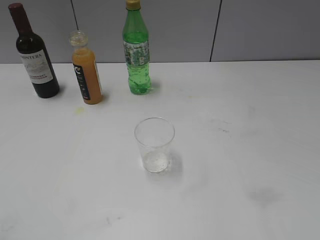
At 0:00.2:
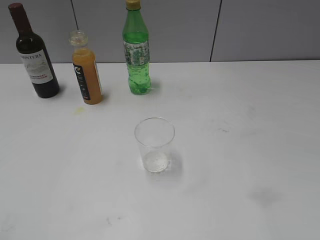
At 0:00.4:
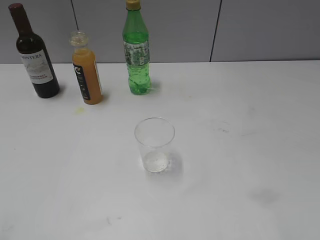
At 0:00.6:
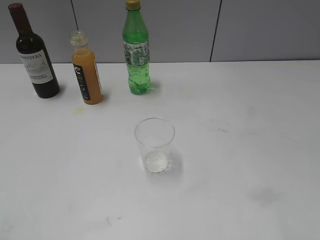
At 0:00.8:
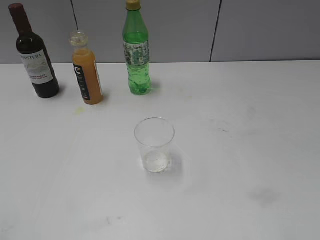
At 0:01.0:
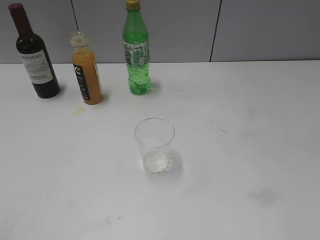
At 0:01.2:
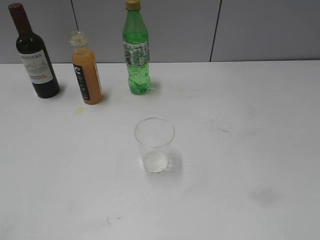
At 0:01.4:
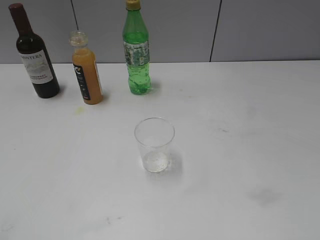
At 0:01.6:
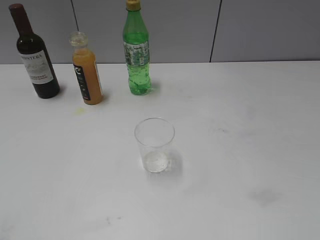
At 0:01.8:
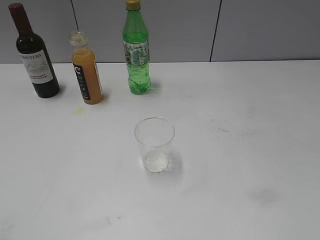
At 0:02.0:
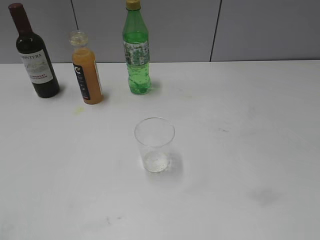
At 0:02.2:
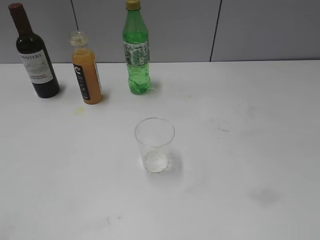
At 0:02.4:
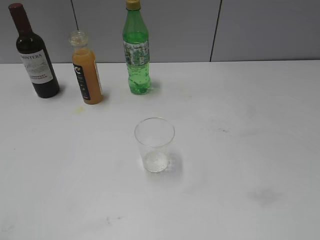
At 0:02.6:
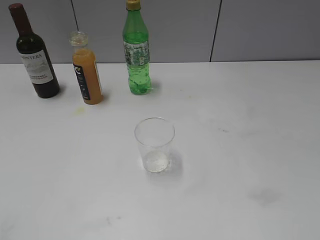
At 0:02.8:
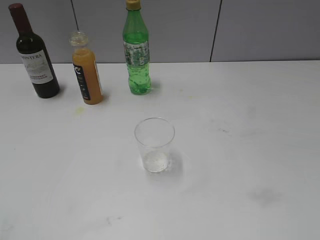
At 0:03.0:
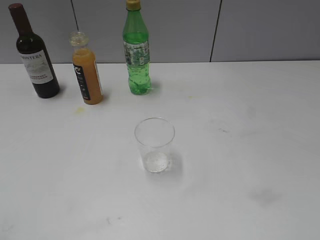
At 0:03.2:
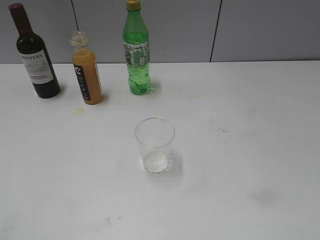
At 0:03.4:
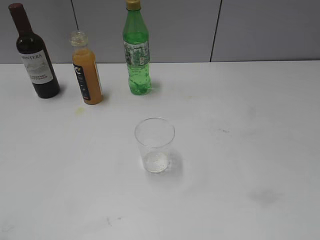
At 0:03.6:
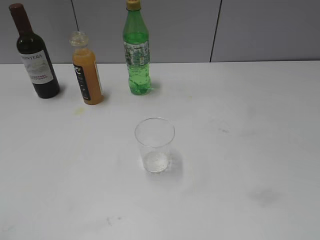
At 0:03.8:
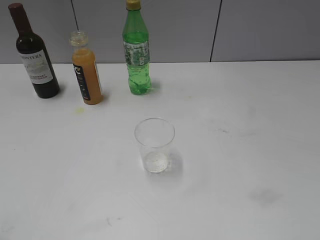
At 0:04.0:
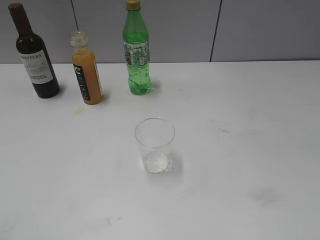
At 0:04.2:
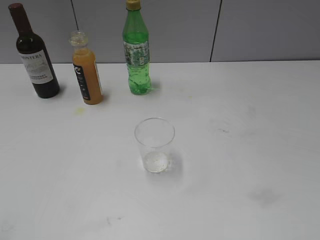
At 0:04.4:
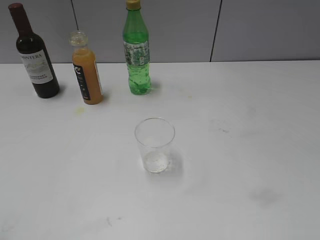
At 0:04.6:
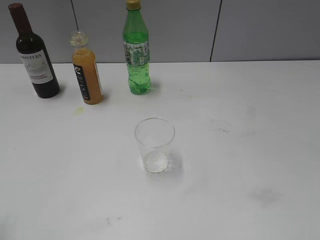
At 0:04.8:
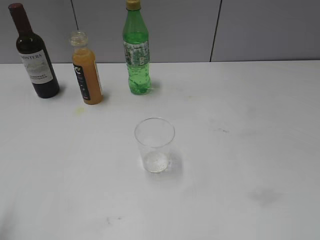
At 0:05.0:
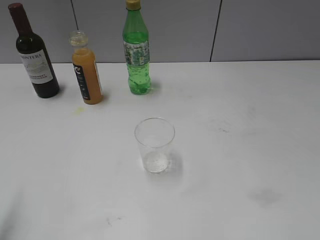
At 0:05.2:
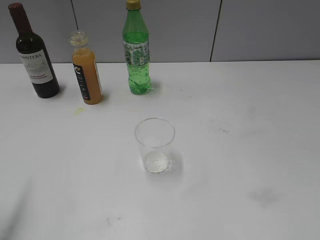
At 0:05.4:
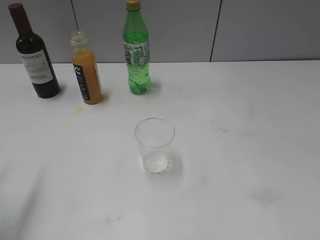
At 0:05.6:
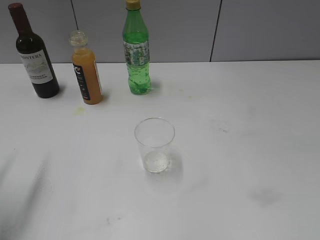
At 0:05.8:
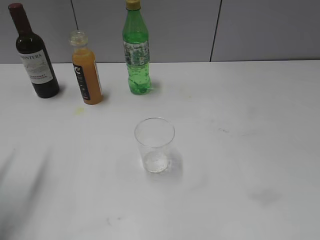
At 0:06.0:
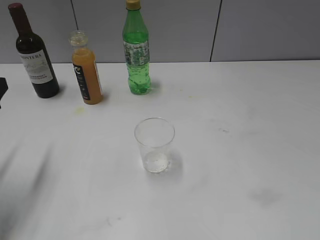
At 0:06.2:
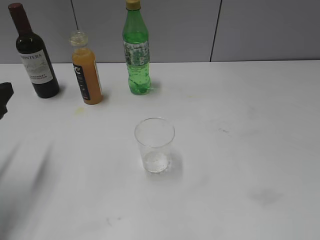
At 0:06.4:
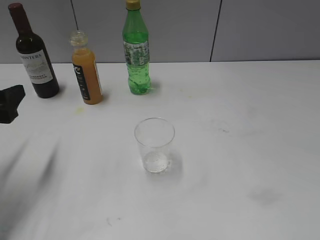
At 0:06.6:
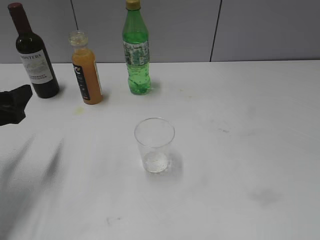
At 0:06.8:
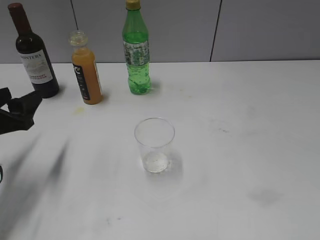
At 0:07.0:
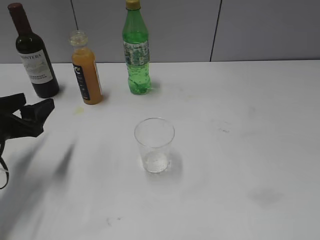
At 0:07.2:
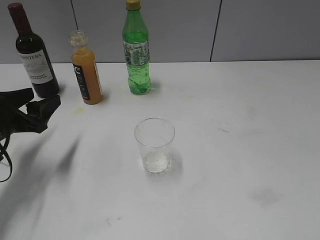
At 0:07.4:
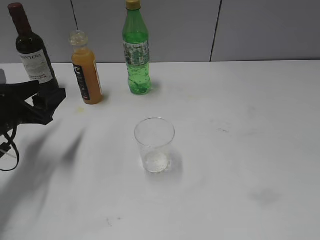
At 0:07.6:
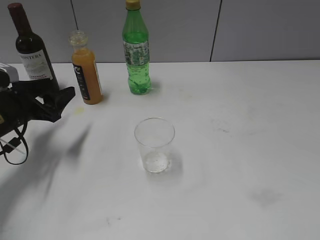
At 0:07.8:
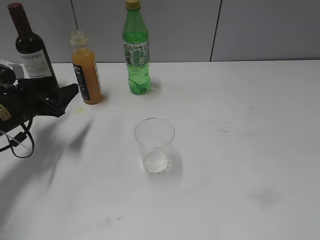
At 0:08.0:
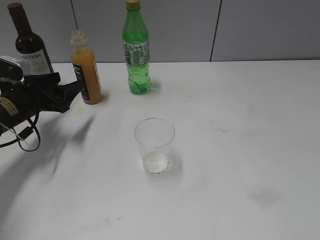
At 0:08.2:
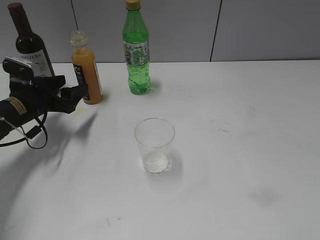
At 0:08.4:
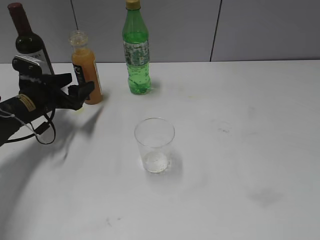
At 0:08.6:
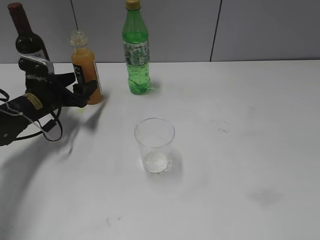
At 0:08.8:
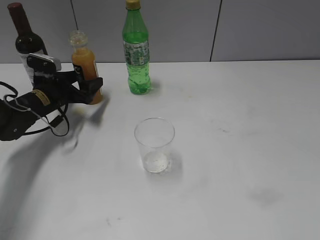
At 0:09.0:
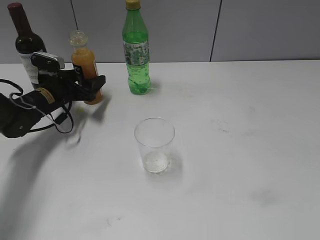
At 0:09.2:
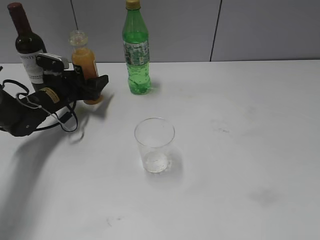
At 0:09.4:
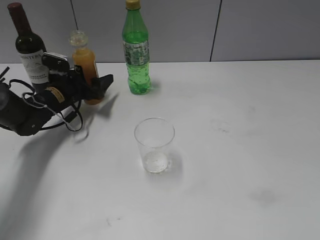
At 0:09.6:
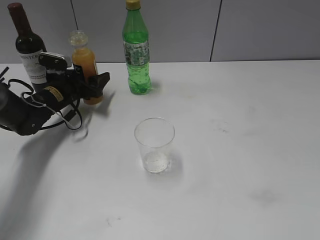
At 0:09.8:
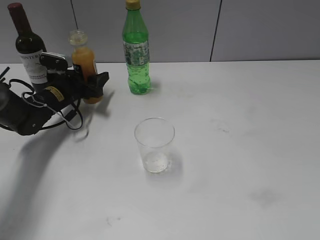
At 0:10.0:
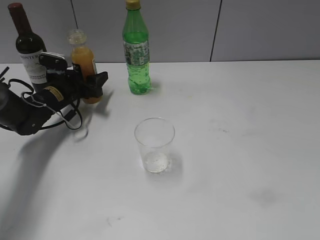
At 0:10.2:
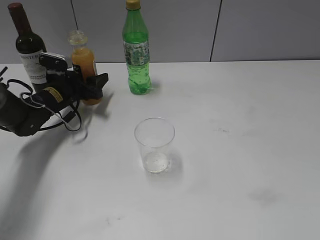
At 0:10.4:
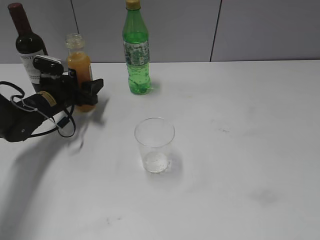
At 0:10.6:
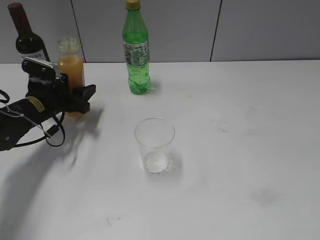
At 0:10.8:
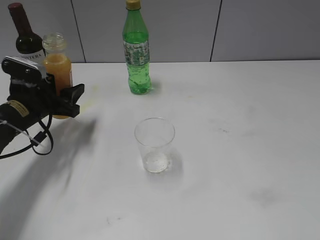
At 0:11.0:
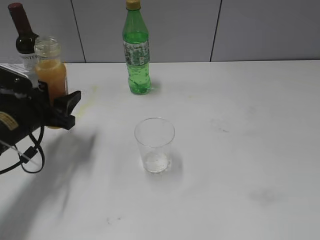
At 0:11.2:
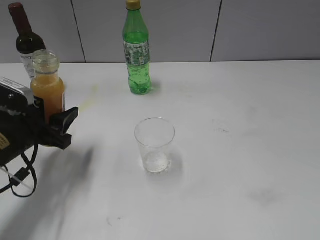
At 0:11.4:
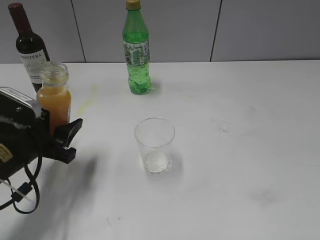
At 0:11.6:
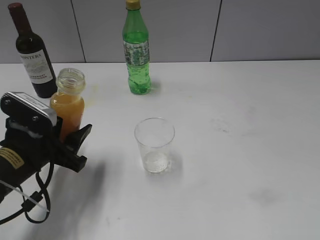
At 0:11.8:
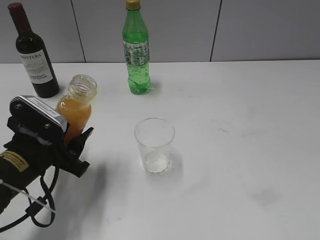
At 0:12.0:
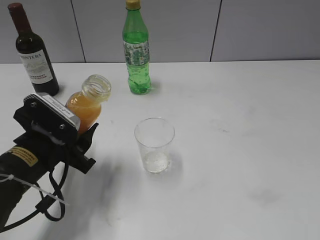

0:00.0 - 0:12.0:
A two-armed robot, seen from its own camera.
Step, 0:00.0 - 0:10.0: Grasp the bottle with orange juice with left gripper.
0:04.4 - 0:06.0: The left gripper shifts approximately 20 cm forward and downward.
0:06.0 - 0:07.6: The left gripper moves forward and downward, approximately 15 cm.
0:07.6 - 0:09.0: The left gripper travels forward by about 10 cm.
0:09.0 - 0:10.4: The left gripper closes its fingers.
0:10.4 - 0:12.0: The left gripper heads backward, covering roughly 20 cm.

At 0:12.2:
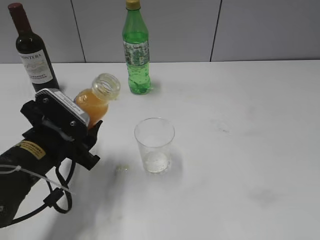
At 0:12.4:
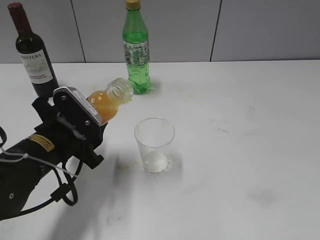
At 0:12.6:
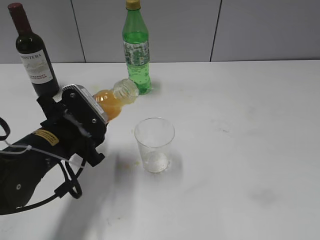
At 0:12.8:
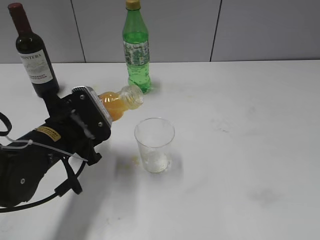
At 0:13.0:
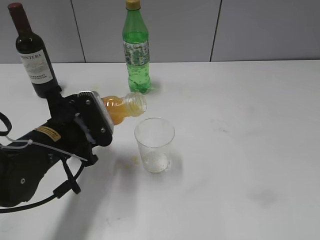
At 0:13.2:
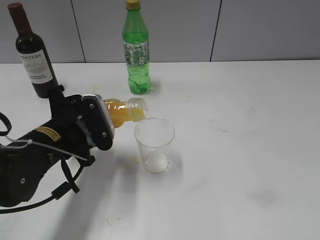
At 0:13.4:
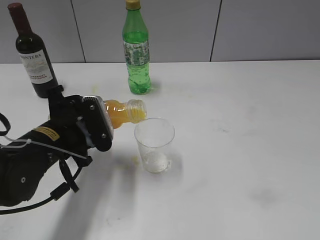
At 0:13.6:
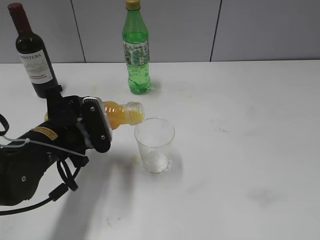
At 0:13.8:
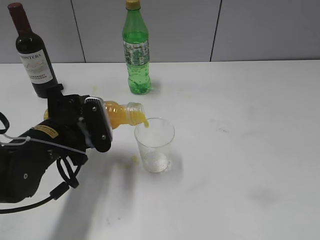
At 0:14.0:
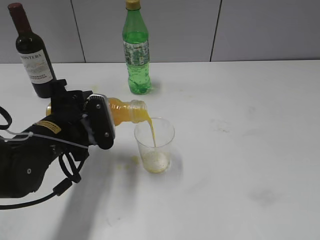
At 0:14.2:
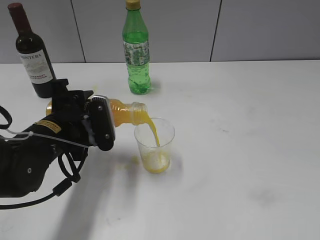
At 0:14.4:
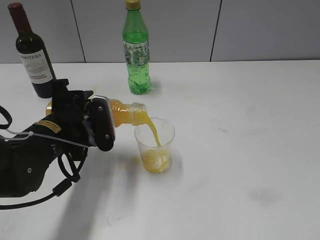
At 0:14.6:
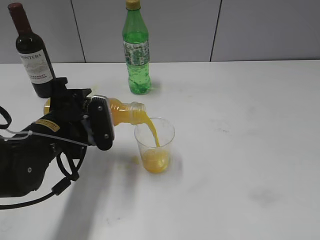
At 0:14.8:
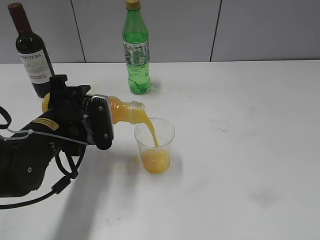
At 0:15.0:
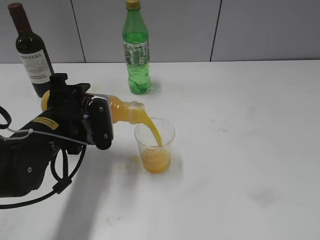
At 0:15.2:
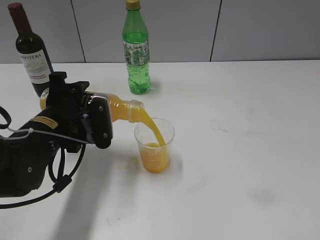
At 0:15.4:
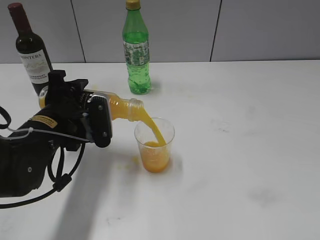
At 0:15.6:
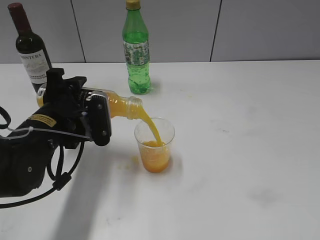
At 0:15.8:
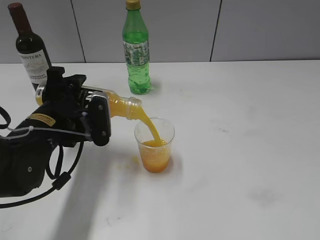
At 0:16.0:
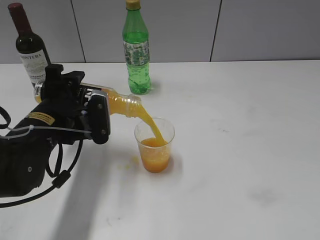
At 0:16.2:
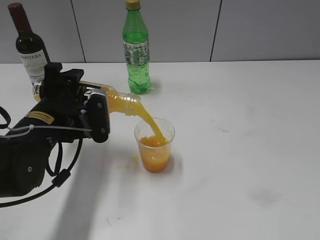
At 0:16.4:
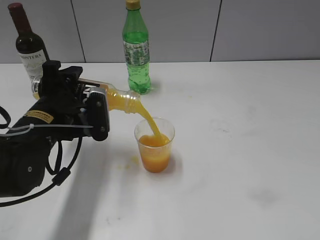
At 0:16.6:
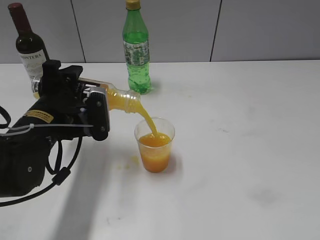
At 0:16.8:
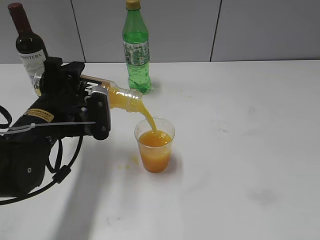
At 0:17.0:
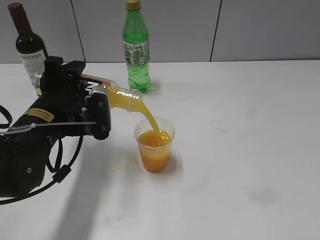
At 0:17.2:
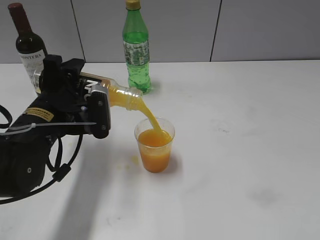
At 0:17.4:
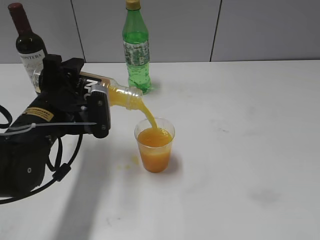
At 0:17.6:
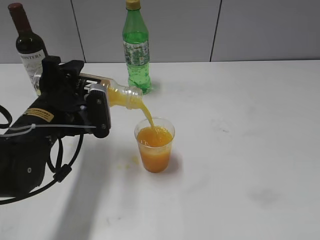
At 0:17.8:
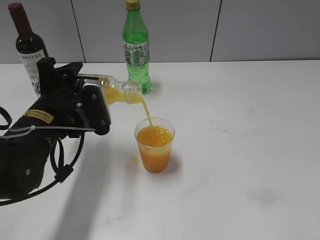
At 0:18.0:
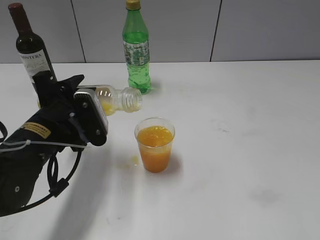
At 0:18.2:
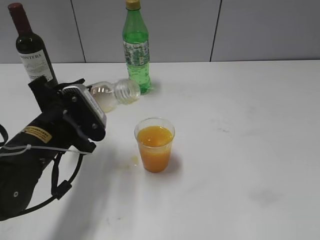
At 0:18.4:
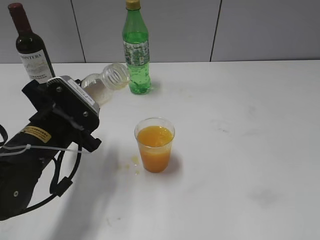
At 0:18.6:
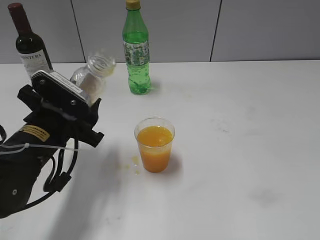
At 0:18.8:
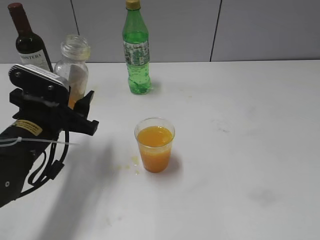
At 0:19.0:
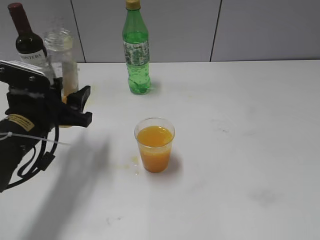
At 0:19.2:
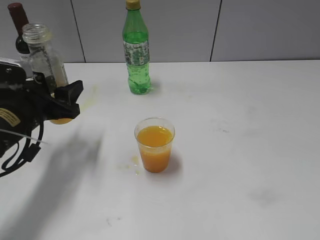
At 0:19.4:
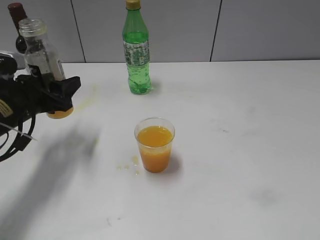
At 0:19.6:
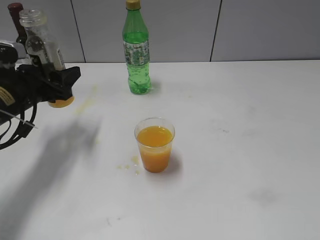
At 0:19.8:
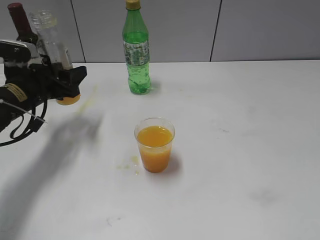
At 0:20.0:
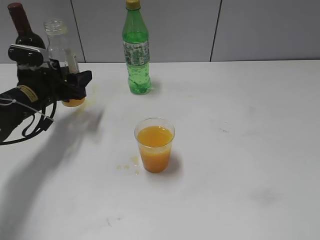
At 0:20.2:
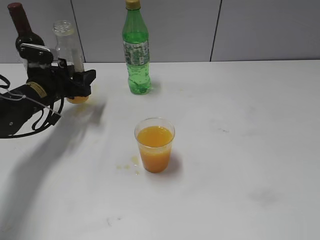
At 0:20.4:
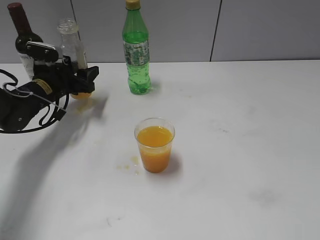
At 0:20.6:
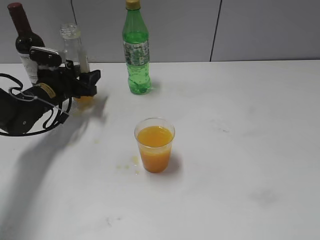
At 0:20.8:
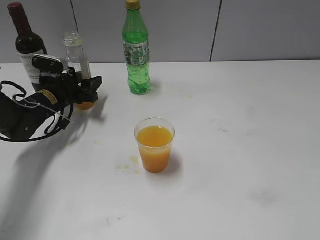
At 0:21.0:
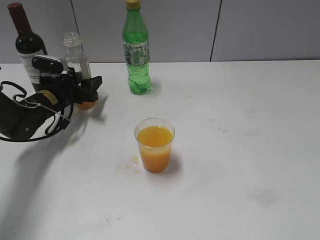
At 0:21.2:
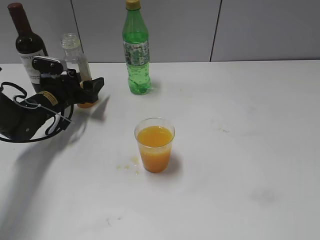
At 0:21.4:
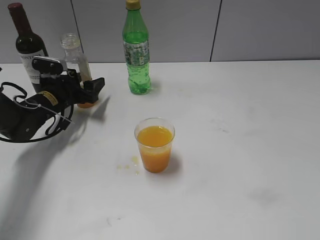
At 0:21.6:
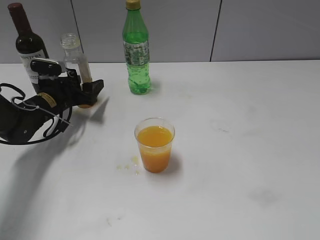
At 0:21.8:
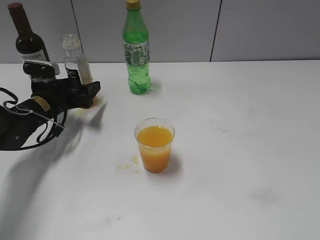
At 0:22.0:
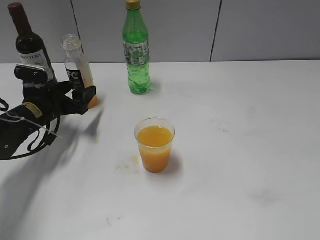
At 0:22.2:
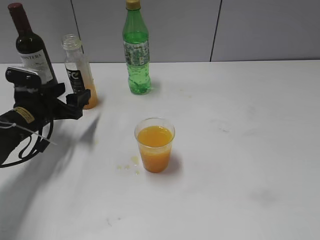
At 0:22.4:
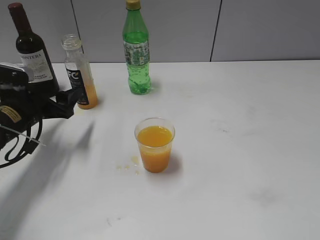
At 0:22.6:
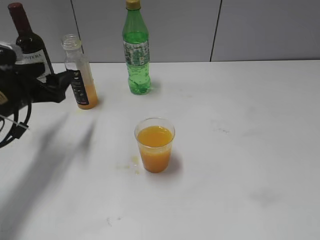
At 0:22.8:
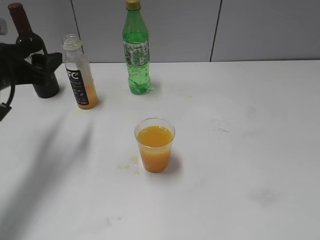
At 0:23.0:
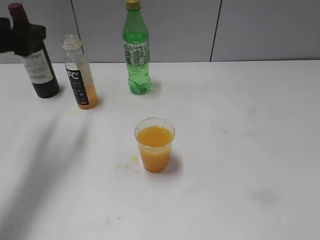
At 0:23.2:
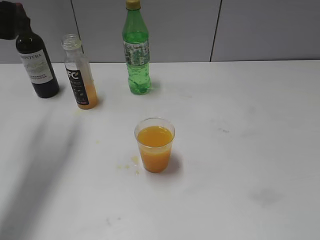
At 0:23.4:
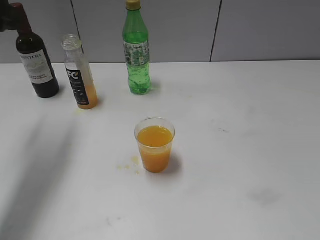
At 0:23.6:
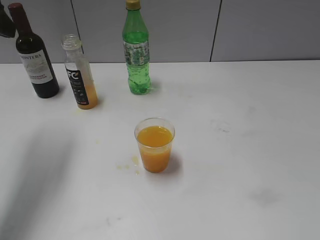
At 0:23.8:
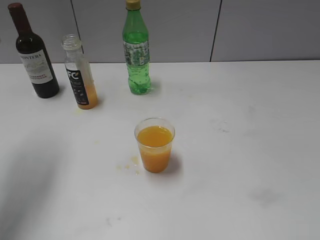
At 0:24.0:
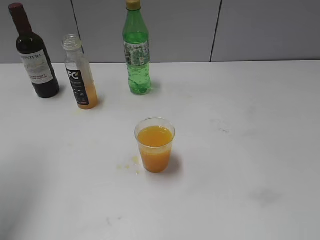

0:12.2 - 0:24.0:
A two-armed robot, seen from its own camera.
Step, 0:12.2 - 0:18.2: Pour the orange juice from bottle to cup with left gripper.
Step, 0:18.4 - 0:21.8: Place the orange juice bottle on the table with left gripper.
0:13.6 - 0:15.2: The grippers move only a little.
0:15.2 - 0:16.6: The grippers stay close to where they were, moving slightly.
0:18.2 - 0:19.6: The left gripper travels to the left and forward by approximately 10 cm.
0:19.6 - 0:21.0: The left gripper is displaced forward and downward by approximately 15 cm.
0:21.0 - 0:22.6: The left gripper goes roughly 15 cm backward and upward, and opens its fingers.
0:22.6 - 0:24.0: The left gripper travels upward and backward by some 20 cm.
